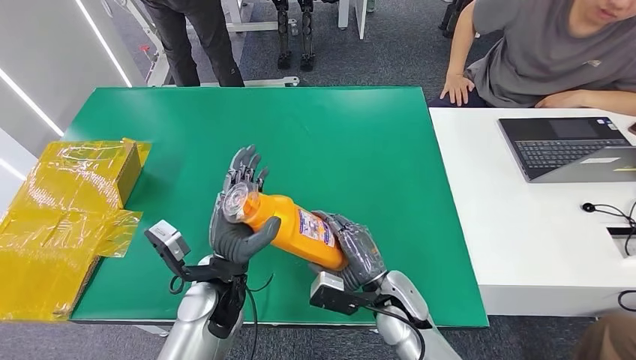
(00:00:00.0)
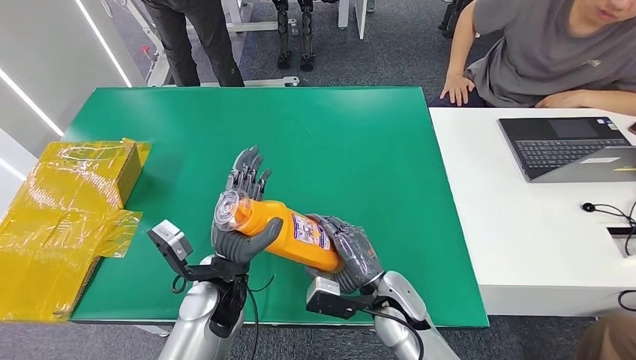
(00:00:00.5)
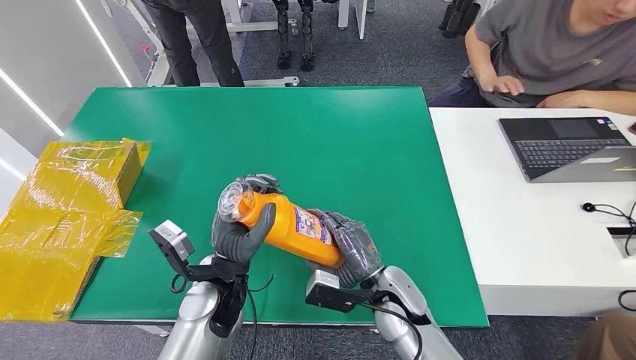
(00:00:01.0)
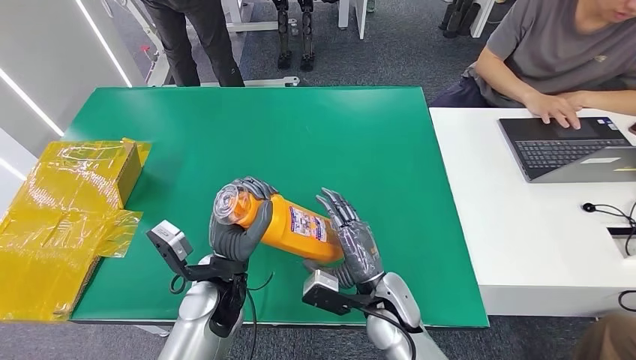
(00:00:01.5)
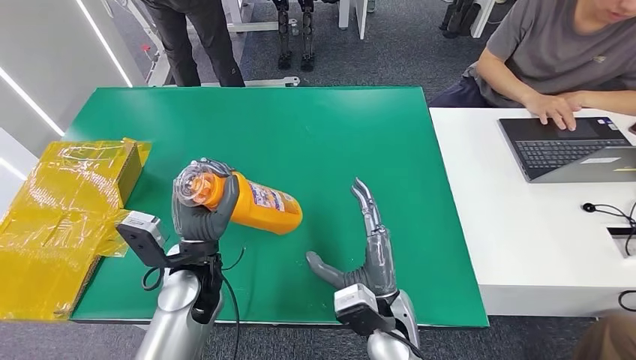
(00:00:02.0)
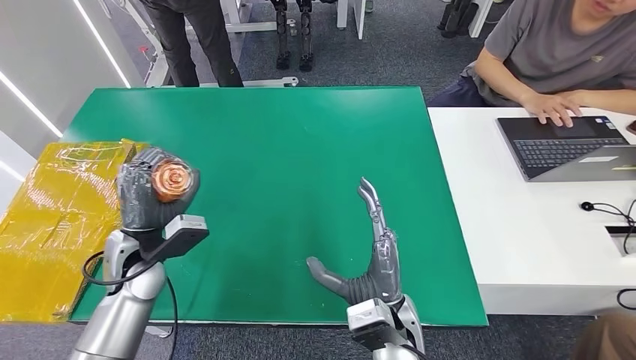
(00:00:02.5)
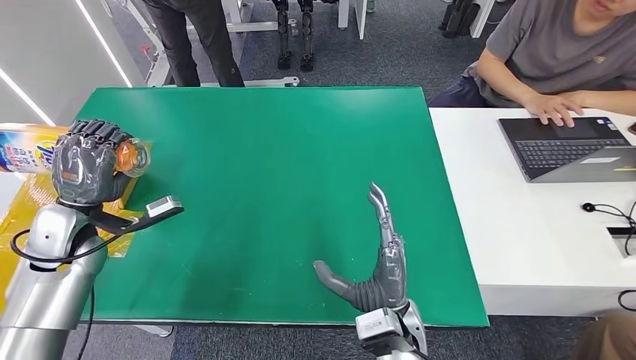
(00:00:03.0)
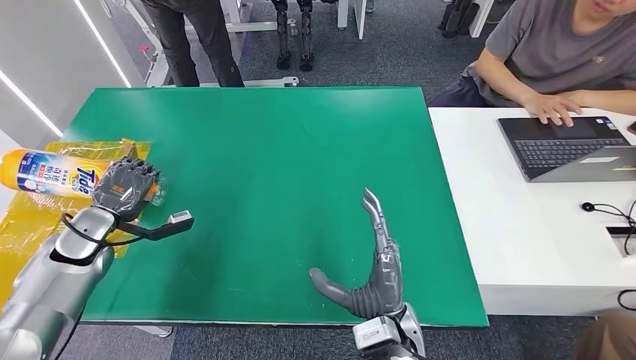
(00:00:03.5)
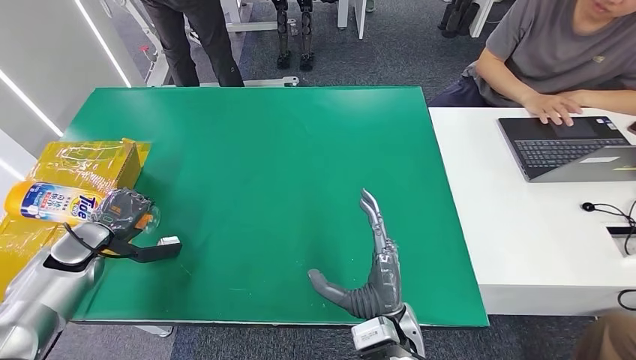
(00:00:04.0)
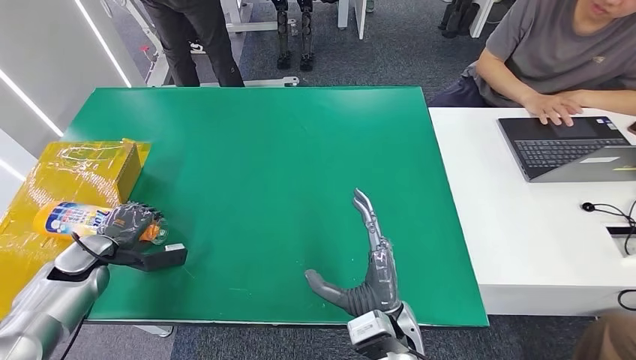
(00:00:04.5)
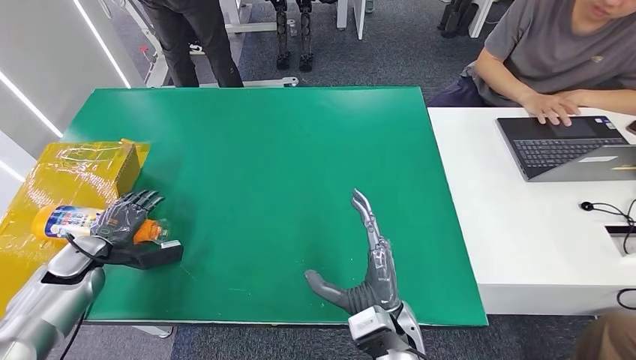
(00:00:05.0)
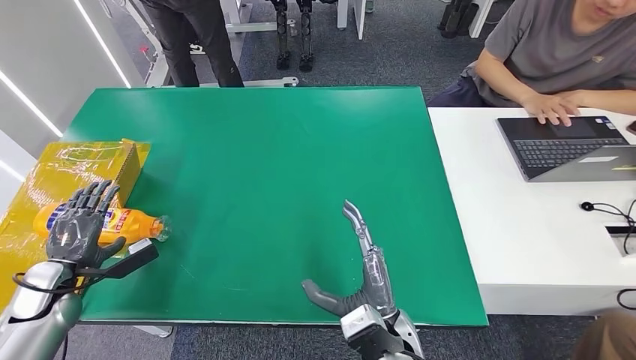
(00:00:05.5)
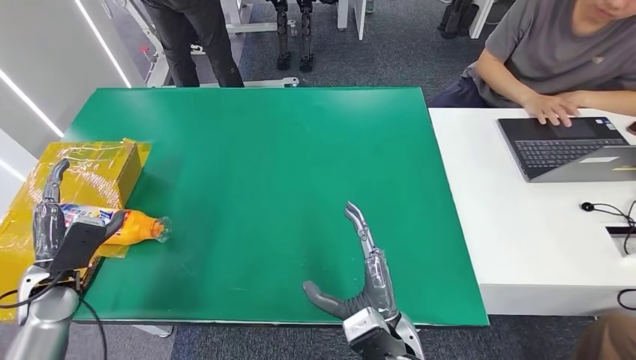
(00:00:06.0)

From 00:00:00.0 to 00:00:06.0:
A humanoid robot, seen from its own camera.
Step, from 00:00:00.0 to 00:00:06.0: Turn the bottle to the front side.
From 00:00:00.0 to 00:00:02.0: The right hand changes place by some 5 cm.
From 00:00:02.0 to 00:00:04.0: The left hand is displaced to the left by approximately 30 cm.
From 00:00:04.0 to 00:00:06.0: The left hand shifts approximately 10 cm backward.
